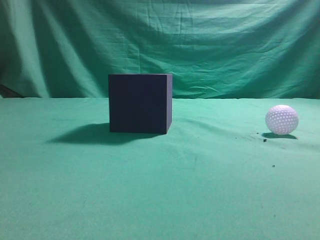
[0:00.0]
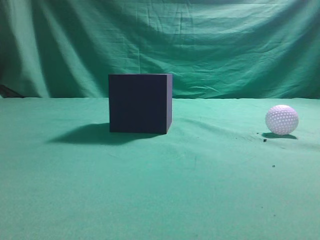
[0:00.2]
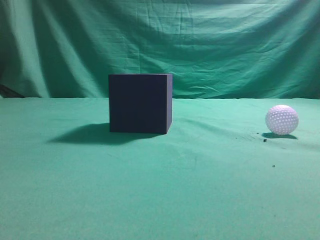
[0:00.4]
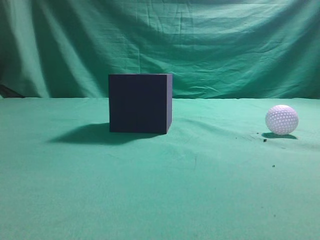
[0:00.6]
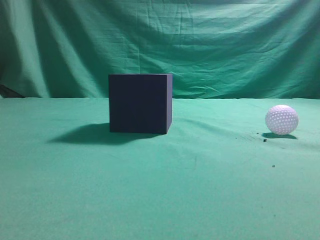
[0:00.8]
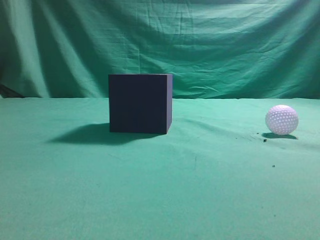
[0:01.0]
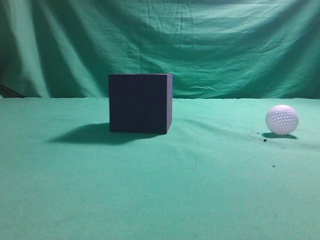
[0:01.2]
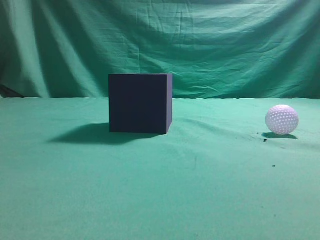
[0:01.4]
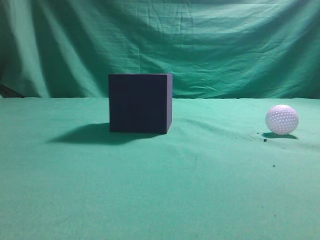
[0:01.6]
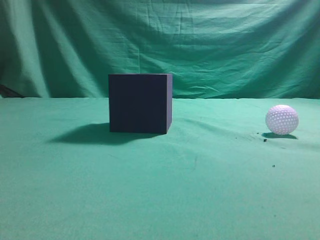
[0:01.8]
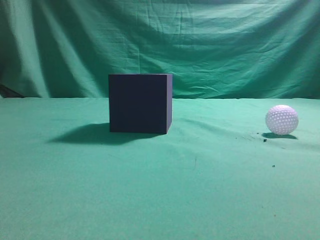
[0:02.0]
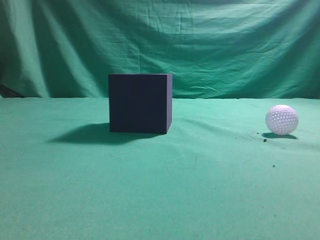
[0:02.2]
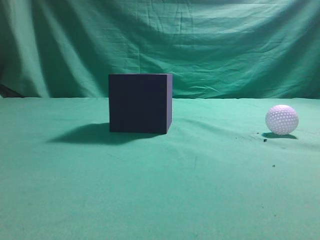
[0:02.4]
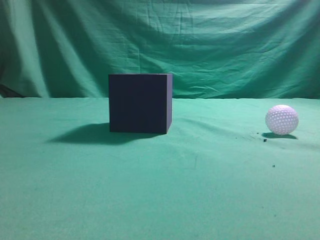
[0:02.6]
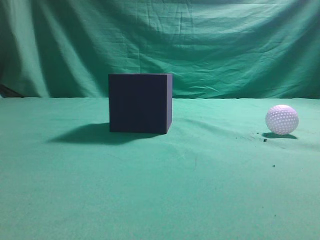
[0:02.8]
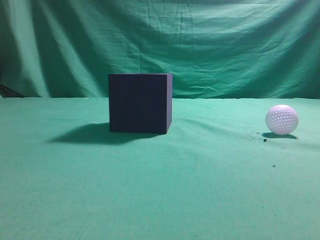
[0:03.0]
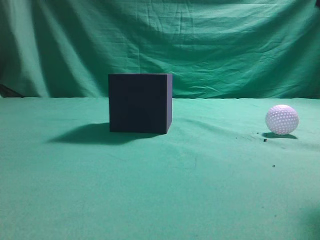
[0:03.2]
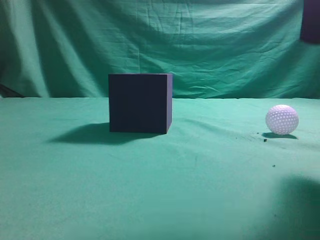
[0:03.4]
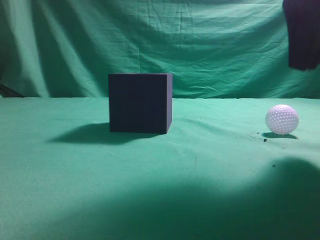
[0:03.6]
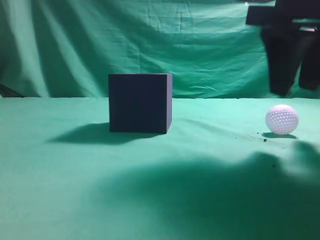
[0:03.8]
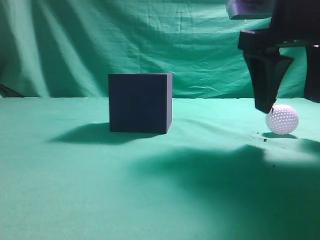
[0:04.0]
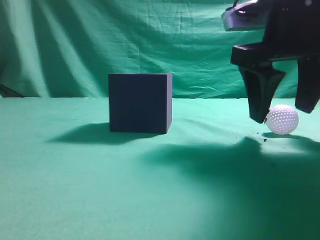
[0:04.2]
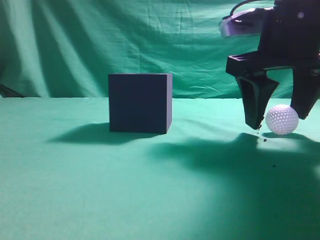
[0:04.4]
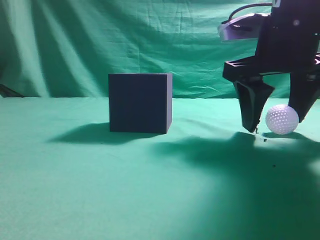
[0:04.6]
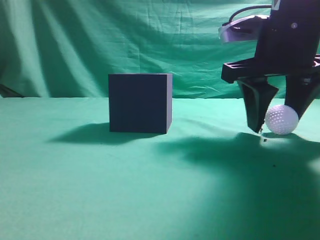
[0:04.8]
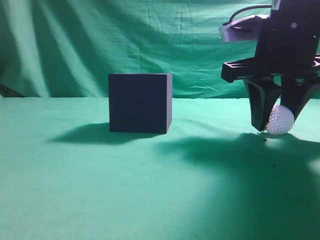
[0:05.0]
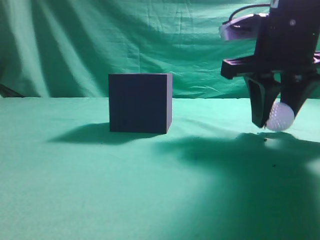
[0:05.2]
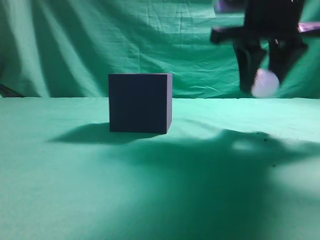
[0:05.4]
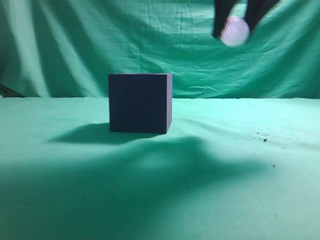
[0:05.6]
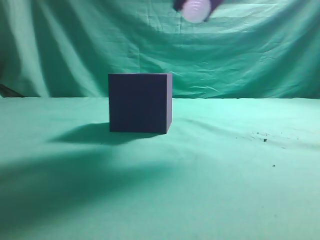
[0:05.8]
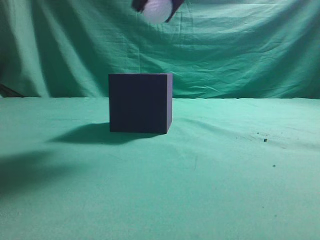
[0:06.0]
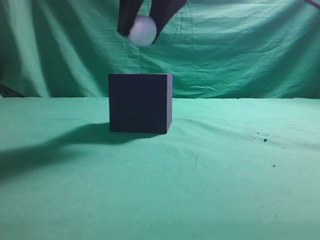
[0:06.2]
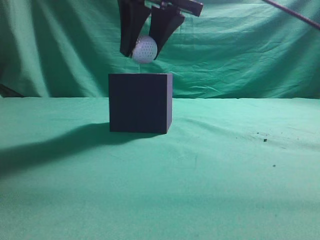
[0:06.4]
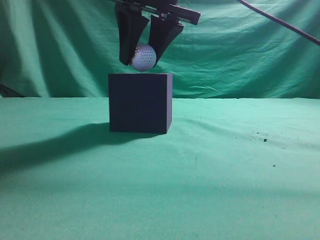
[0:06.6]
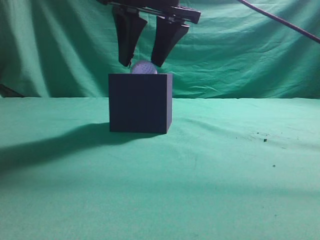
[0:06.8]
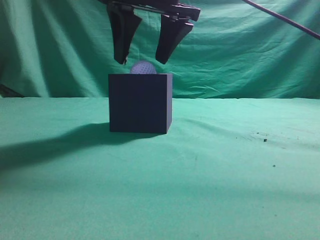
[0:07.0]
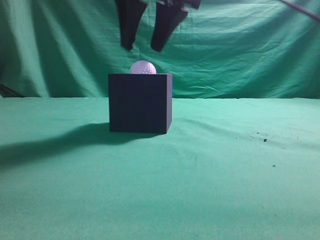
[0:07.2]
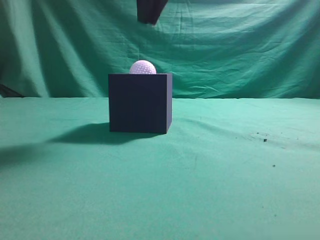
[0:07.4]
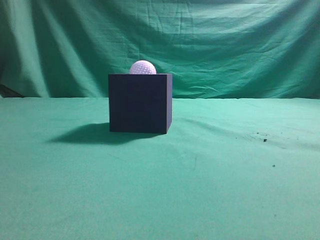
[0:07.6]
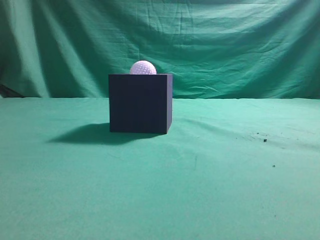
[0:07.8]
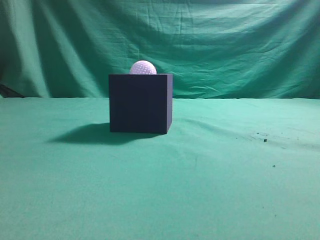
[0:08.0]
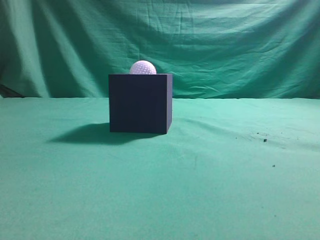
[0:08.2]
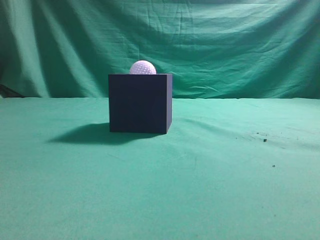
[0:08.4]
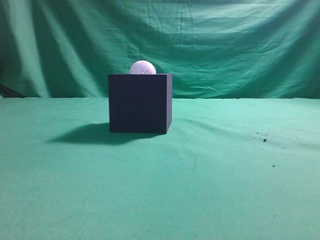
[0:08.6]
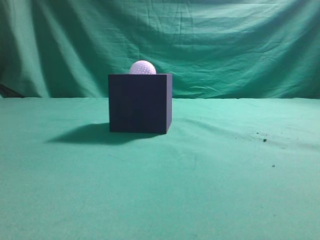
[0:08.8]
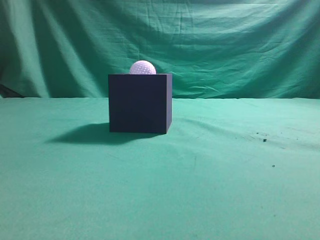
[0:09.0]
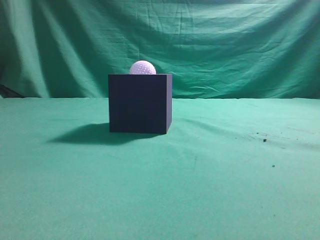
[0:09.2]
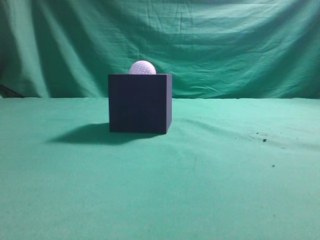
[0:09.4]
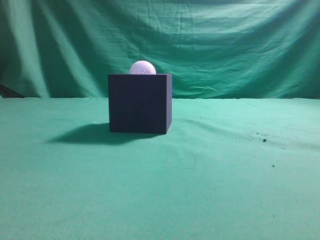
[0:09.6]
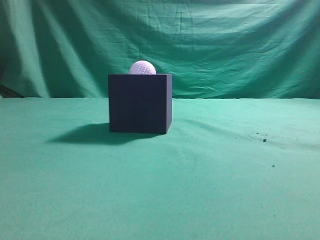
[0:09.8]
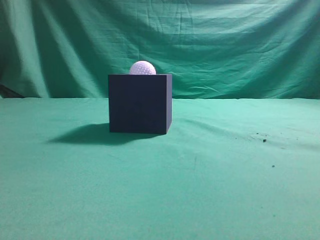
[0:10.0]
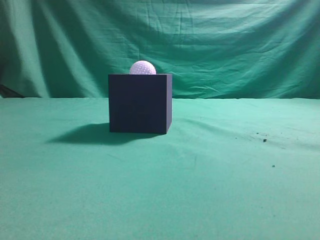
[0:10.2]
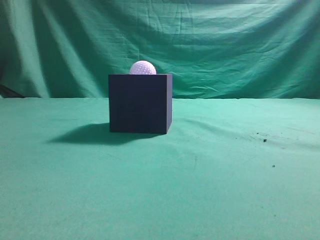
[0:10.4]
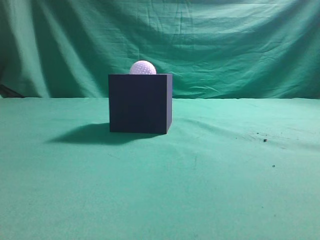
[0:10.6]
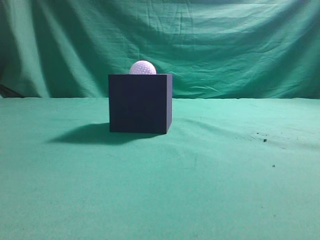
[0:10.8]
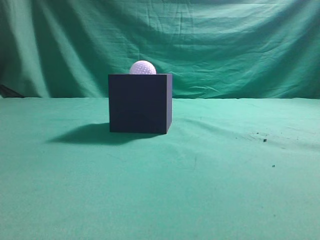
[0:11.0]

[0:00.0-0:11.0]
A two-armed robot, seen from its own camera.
Task of the whole recording: Pick up the ball and place it in the circular groove above the cube.
Step, 0:00.0 to 0:05.2: Grasp the sphere on the table.
Step, 0:05.4 to 0:07.2: Place the sphere into the sphere-shaped recess.
0:01.6 to 0:03.2: The right gripper moves forward, to the left and upward, about 20 cm.
0:03.2 to 0:04.8: The right gripper moves downward and forward, some 15 cm, and opens its fingers.
0:04.8 to 0:06.2: The right gripper is displaced to the left and upward by approximately 15 cm.
0:06.2 to 0:07.8: The right gripper travels upward by approximately 15 cm, and closes up.
